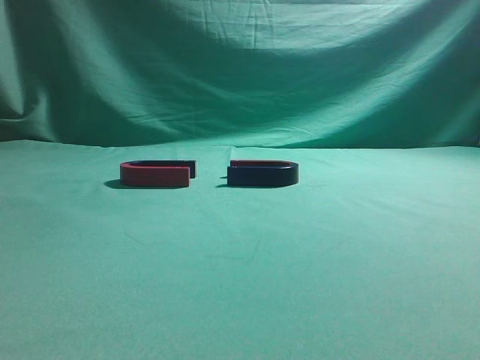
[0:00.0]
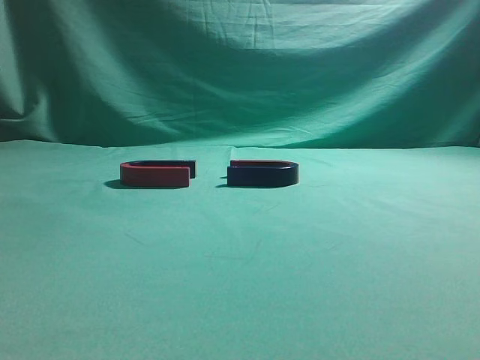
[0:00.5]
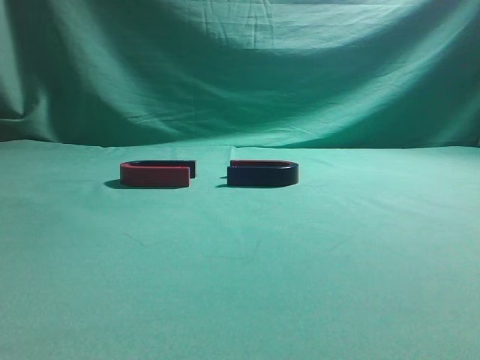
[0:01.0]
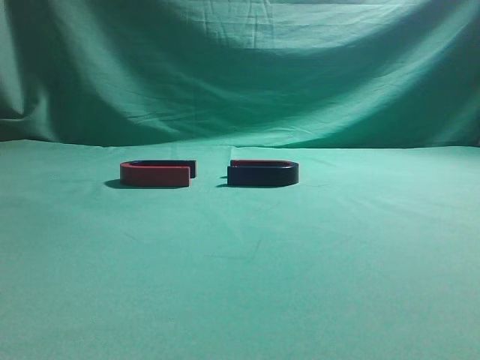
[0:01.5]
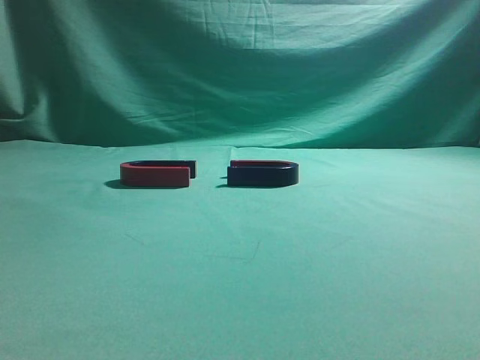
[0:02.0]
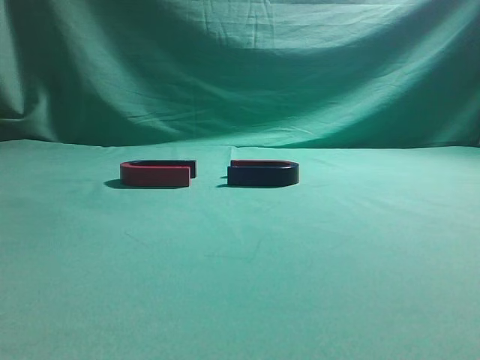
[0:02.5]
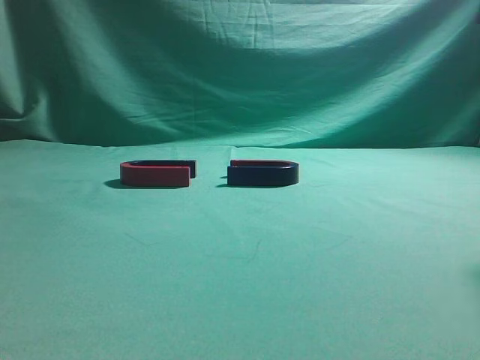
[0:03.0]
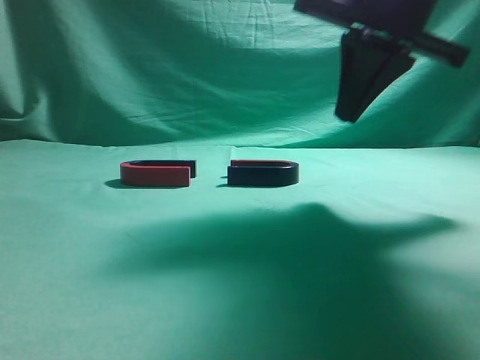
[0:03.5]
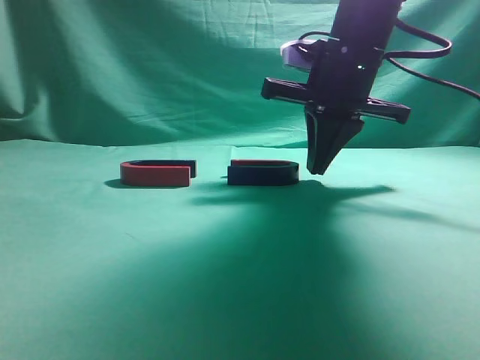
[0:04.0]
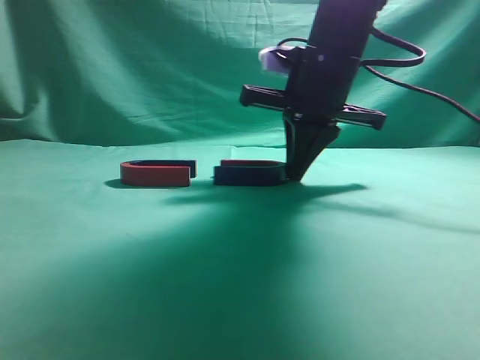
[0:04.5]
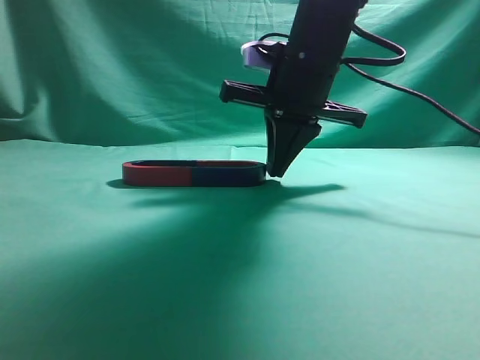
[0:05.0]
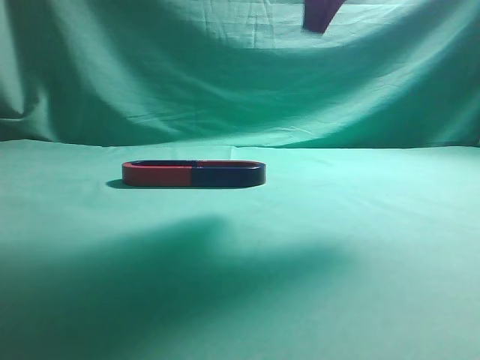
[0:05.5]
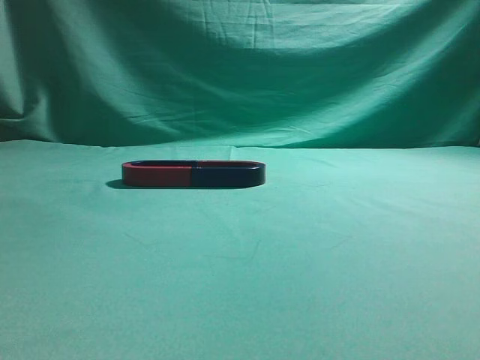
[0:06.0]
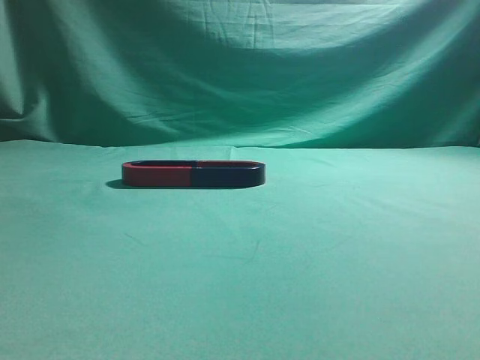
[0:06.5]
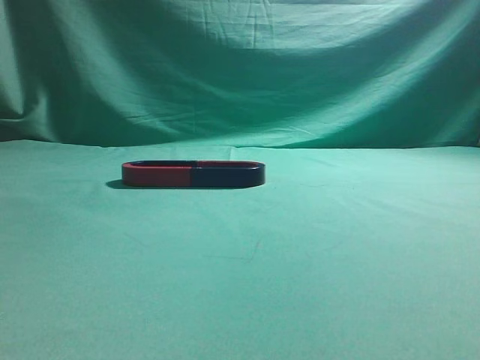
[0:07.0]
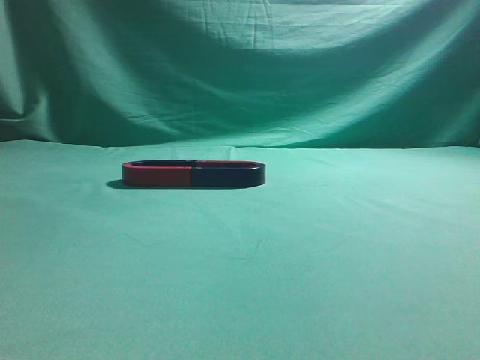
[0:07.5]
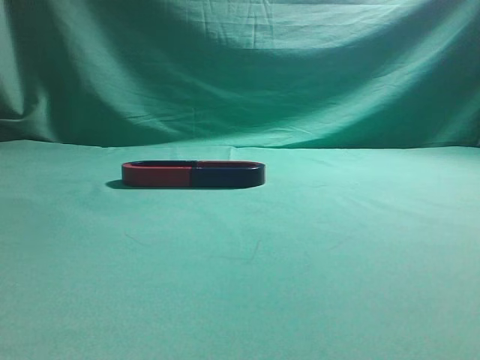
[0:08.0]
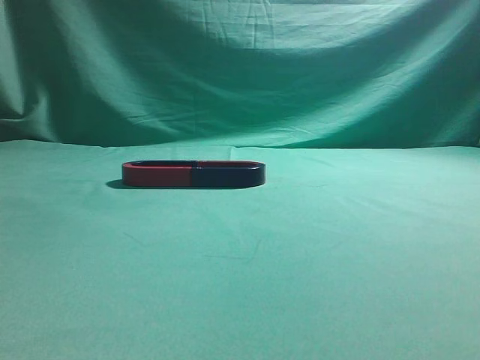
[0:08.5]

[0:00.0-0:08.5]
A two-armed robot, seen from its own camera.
Task of the whole recording: push the magnet on the table from its original position to another position.
Step, 0:00.0 to 0:05.0: Push the magnet on the right to connect the magnet on the left.
0:02.0 to 0:04.0: The right gripper heads forward and to the left, covering about 40 cm.
0:04.0 to 0:06.5: The right gripper is displaced backward, upward and to the right by about 35 cm.
